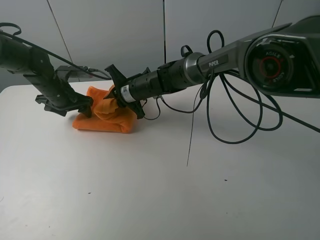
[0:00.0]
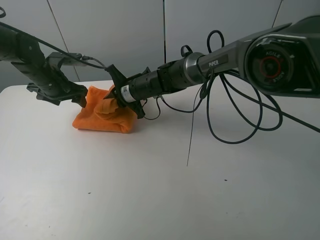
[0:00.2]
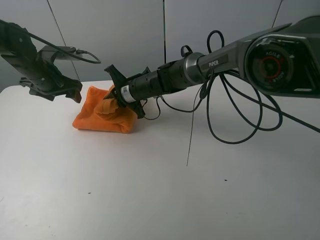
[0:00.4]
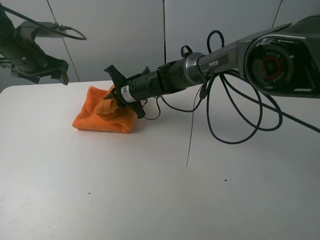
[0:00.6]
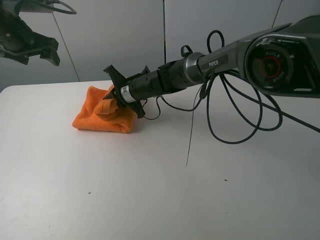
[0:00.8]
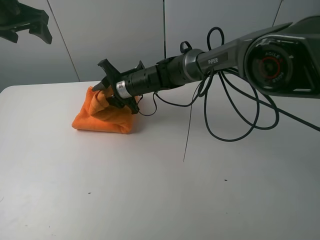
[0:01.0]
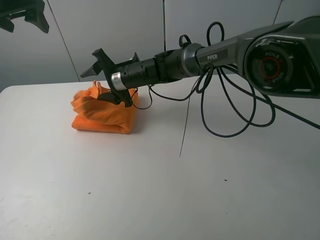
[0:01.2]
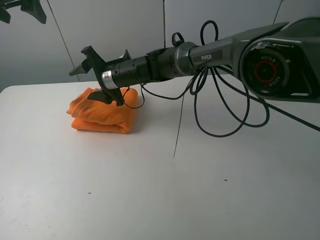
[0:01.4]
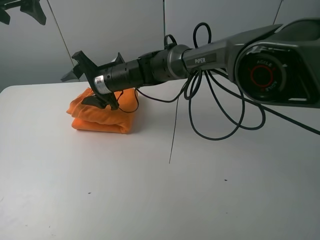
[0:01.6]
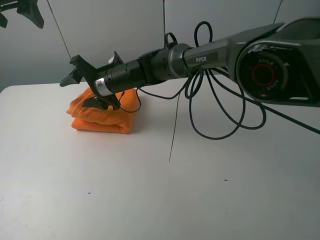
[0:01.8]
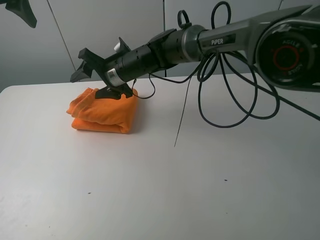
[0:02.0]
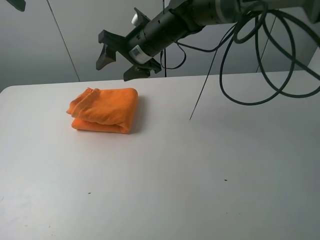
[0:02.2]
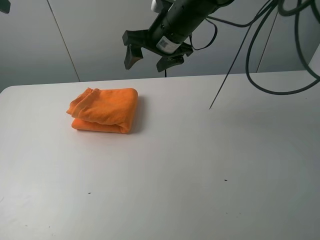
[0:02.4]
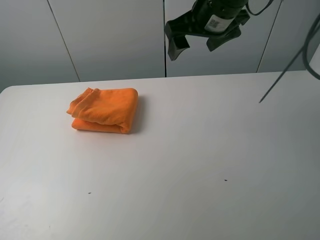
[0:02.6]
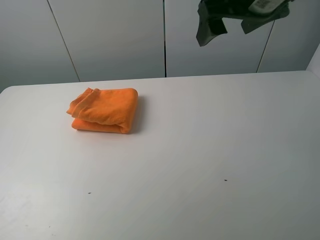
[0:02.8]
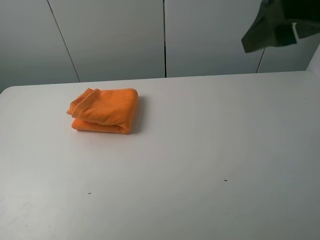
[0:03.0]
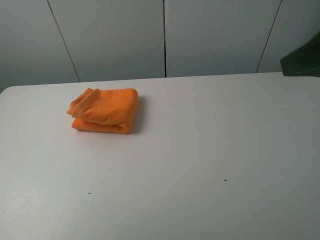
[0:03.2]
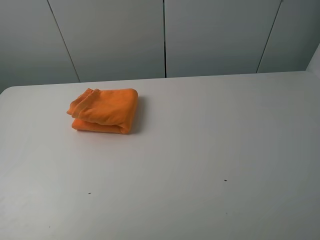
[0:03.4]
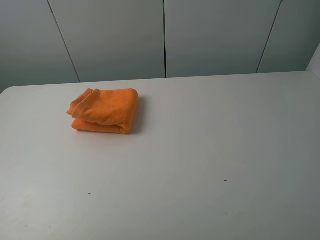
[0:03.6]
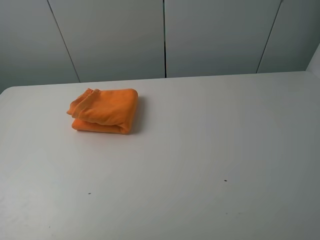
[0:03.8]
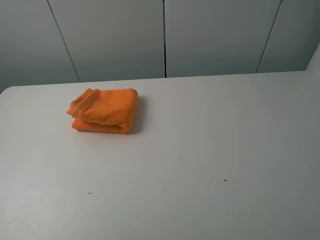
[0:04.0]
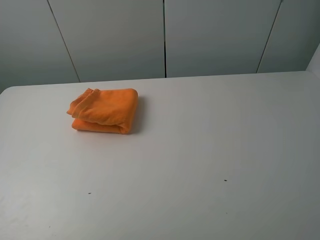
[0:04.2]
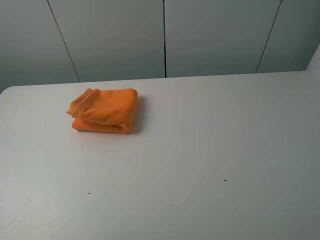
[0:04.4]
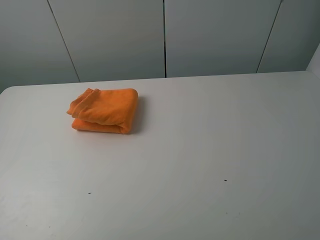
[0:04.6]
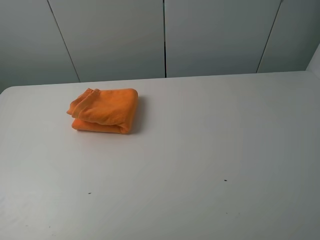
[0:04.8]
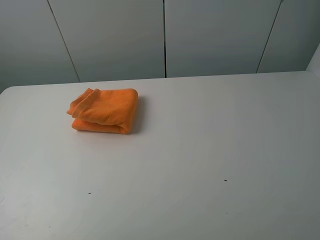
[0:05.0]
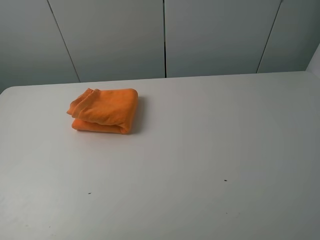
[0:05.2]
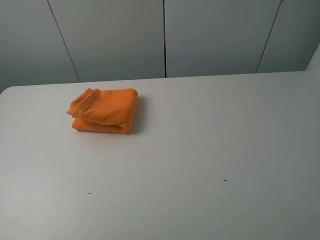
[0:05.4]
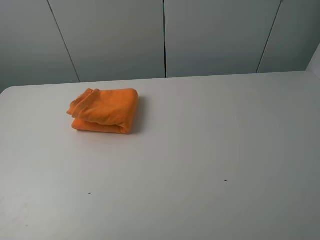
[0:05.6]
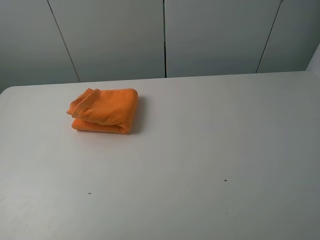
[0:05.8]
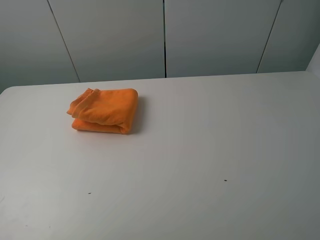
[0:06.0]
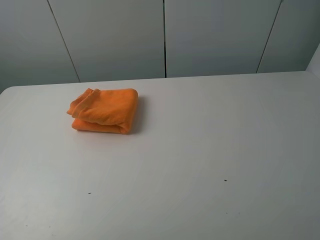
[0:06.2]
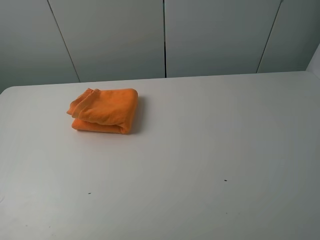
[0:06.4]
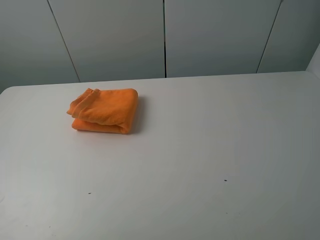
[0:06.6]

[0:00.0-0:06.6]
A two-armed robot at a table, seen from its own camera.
Task of the whole recording: fold the towels on the table.
0:00.0 to 0:01.6: The left gripper heads upward, covering roughly 25 cm. Meanwhile the right gripper heads to the left, covering approximately 5 cm, and opens up.
0:01.6 to 0:03.2: The right gripper is displaced to the right, backward and upward by approximately 50 cm; the left gripper goes some 35 cm backward.
0:03.2 to 0:05.0: The right gripper goes some 15 cm backward, downward and to the right.
